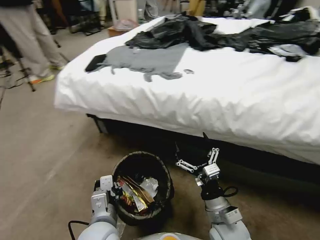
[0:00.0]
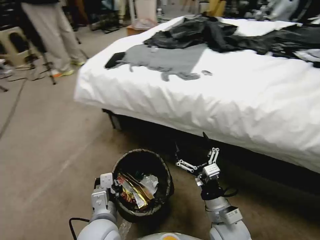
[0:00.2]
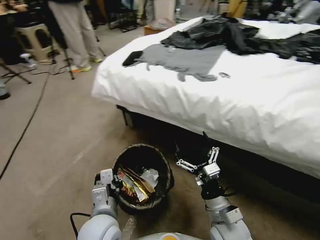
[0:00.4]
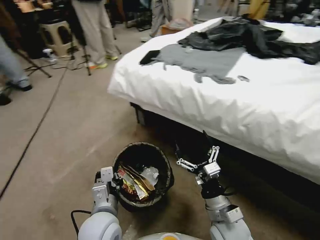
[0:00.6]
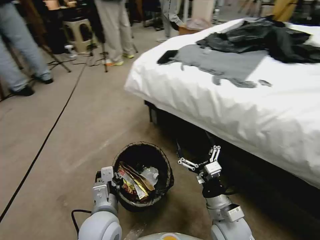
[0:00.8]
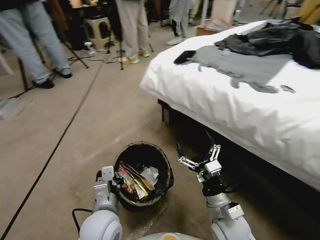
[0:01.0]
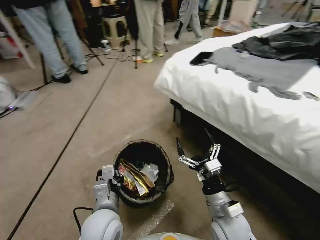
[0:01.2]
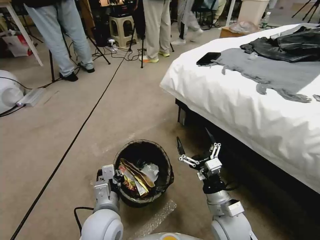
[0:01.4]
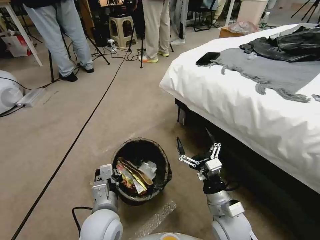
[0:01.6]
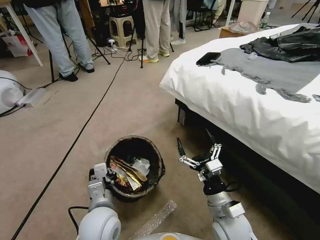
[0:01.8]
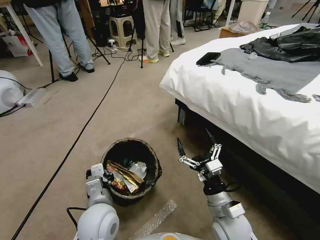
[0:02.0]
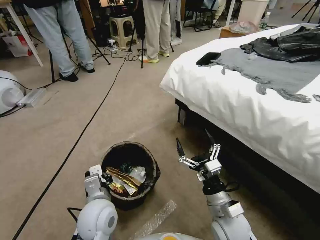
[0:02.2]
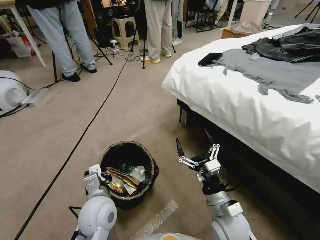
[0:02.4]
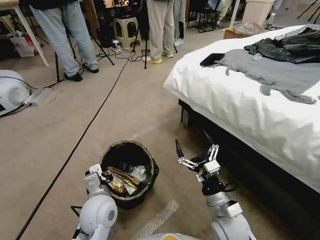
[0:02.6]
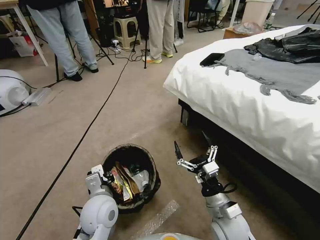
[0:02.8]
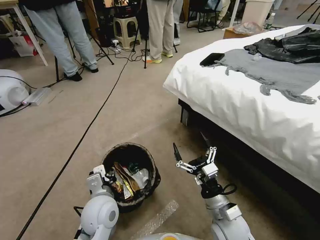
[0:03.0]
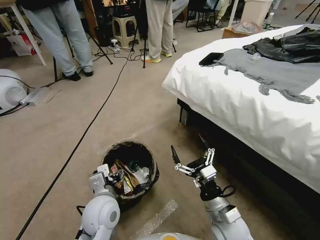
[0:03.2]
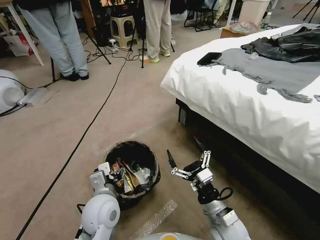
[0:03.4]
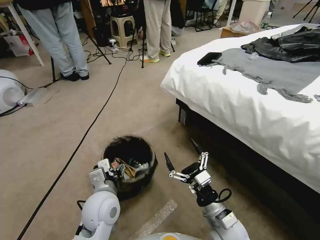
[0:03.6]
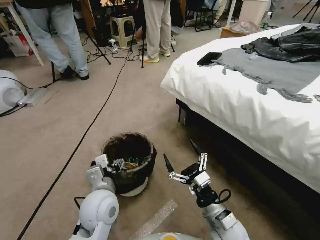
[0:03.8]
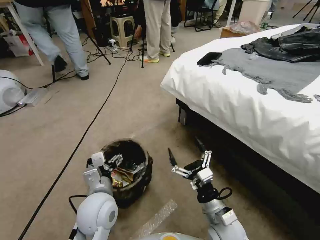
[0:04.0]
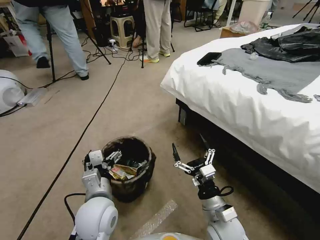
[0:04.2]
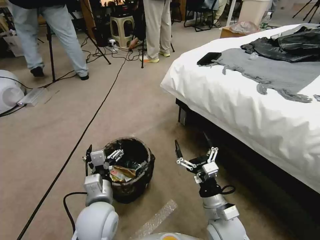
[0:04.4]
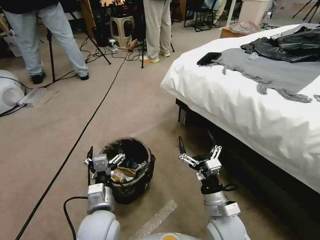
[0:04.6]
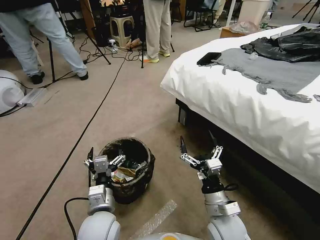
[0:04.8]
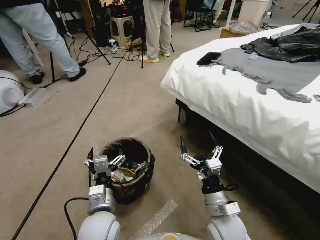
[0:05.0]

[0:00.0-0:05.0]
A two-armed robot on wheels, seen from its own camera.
Task of the whole recording: Pick up the trash bin, then pick up the garbage from the floor and place it into the trash bin.
0:01.6 to 0:03.4: The left gripper opens up.

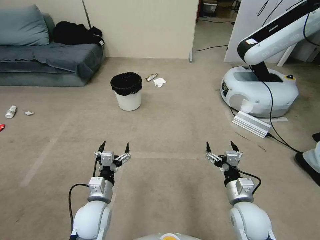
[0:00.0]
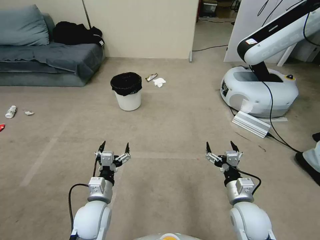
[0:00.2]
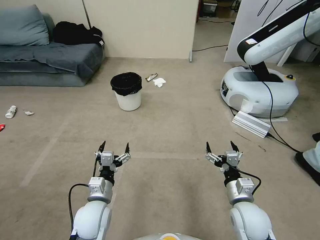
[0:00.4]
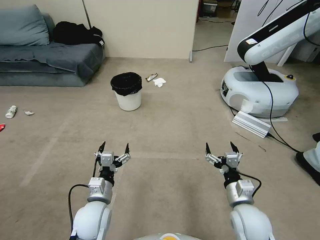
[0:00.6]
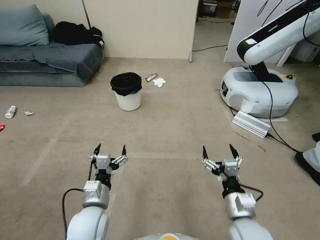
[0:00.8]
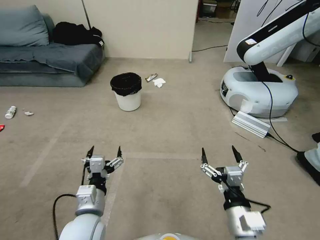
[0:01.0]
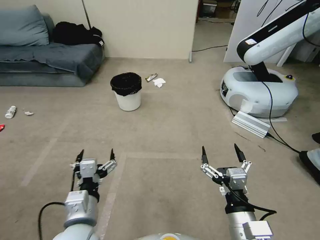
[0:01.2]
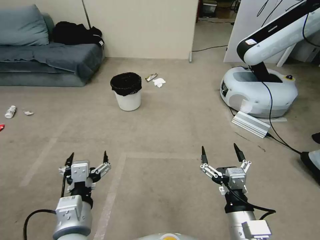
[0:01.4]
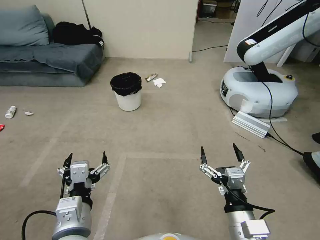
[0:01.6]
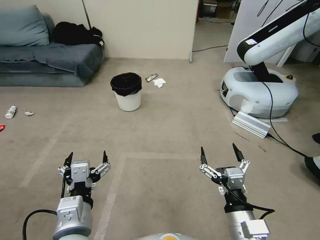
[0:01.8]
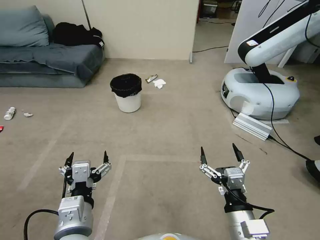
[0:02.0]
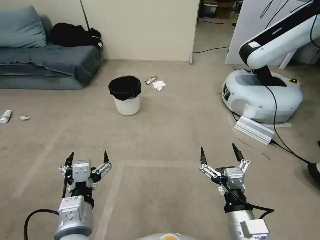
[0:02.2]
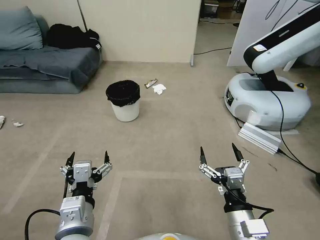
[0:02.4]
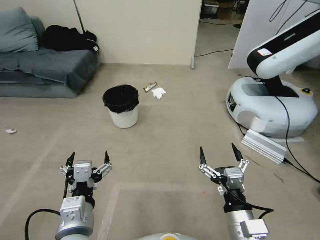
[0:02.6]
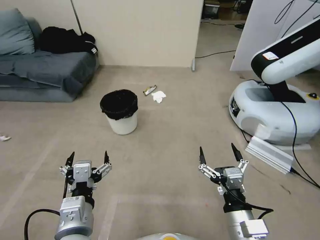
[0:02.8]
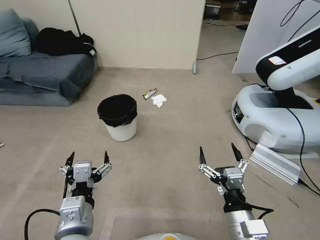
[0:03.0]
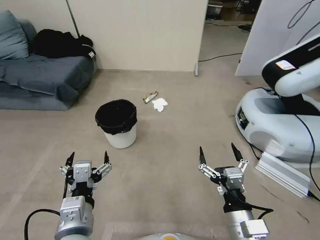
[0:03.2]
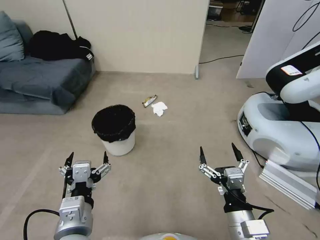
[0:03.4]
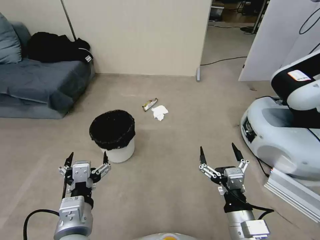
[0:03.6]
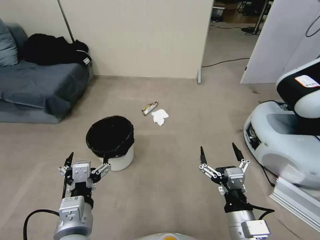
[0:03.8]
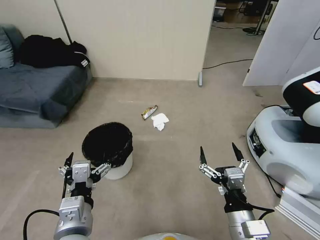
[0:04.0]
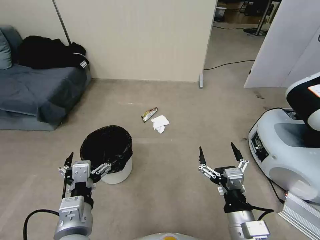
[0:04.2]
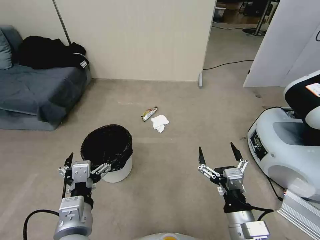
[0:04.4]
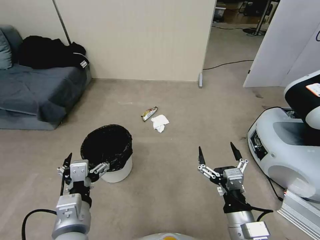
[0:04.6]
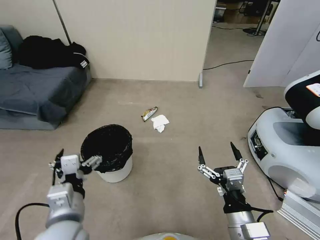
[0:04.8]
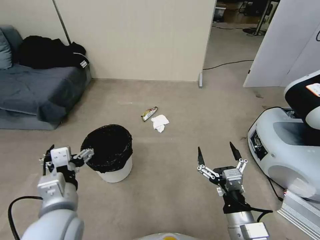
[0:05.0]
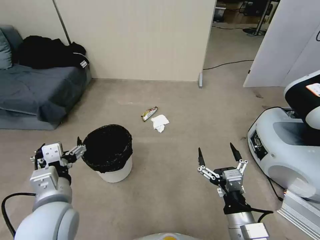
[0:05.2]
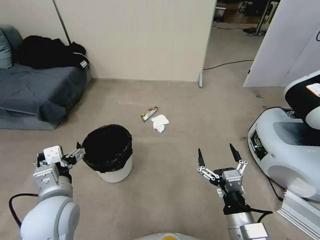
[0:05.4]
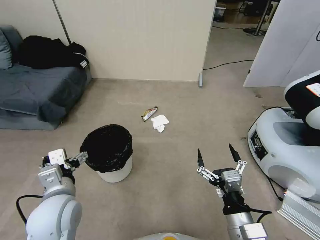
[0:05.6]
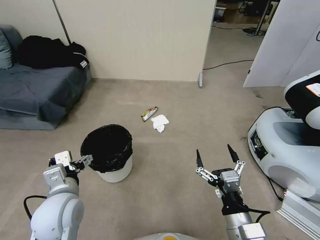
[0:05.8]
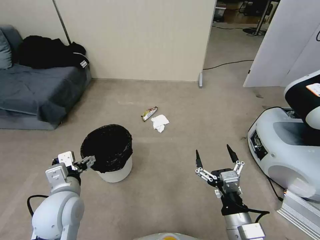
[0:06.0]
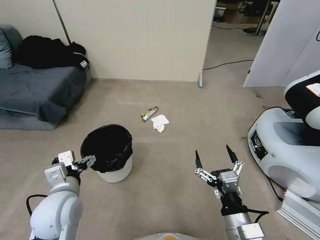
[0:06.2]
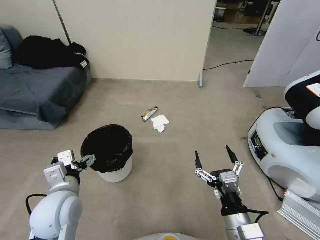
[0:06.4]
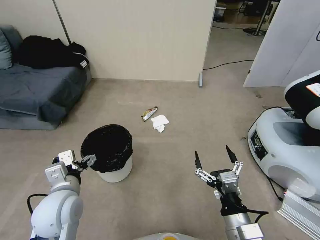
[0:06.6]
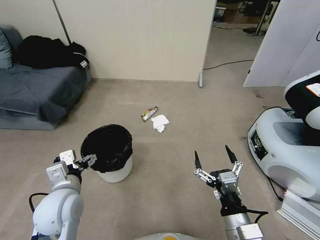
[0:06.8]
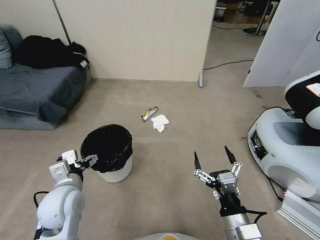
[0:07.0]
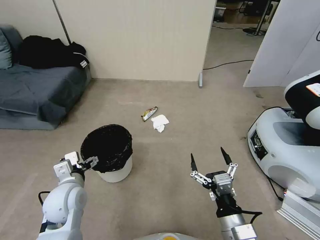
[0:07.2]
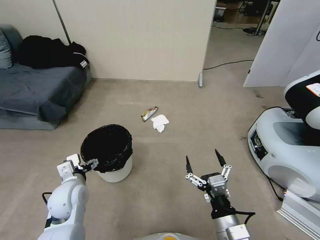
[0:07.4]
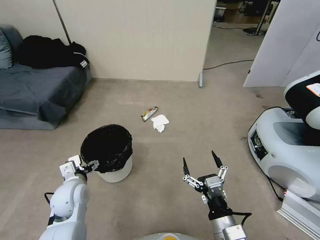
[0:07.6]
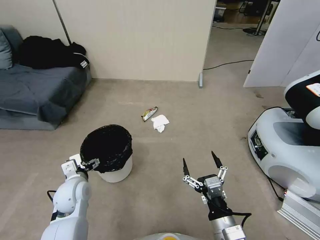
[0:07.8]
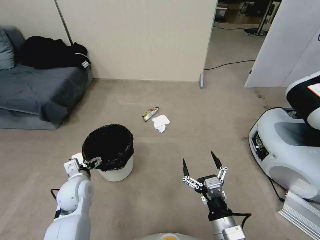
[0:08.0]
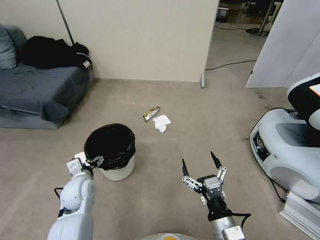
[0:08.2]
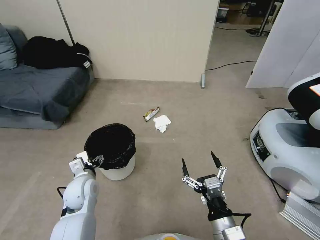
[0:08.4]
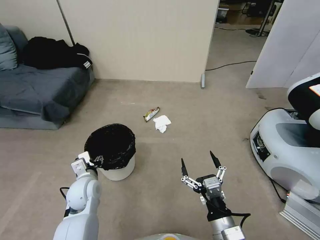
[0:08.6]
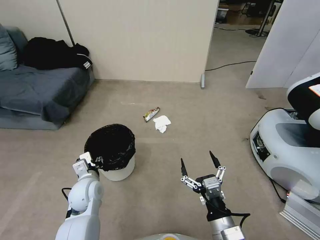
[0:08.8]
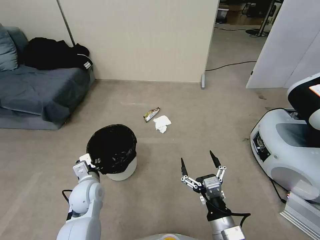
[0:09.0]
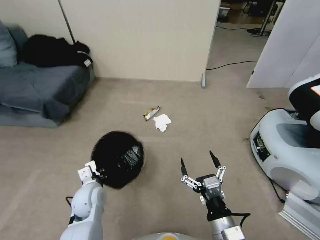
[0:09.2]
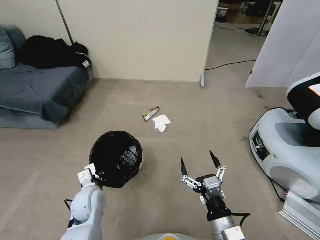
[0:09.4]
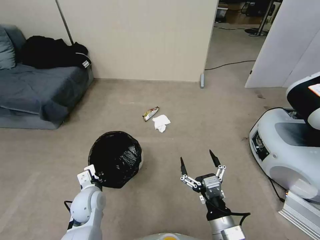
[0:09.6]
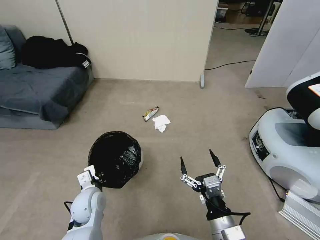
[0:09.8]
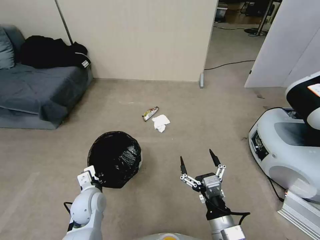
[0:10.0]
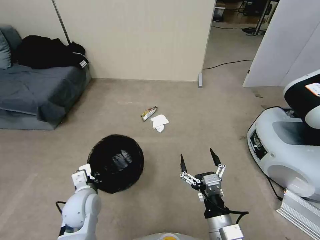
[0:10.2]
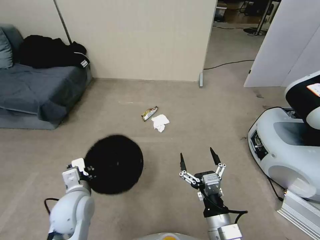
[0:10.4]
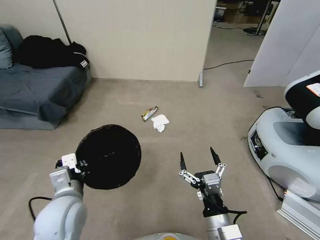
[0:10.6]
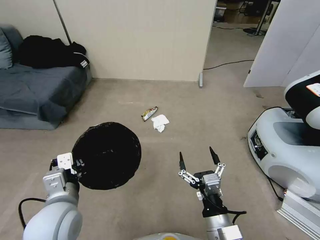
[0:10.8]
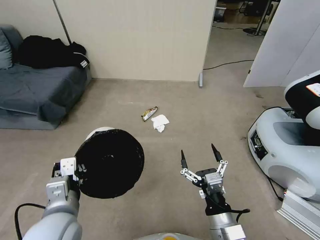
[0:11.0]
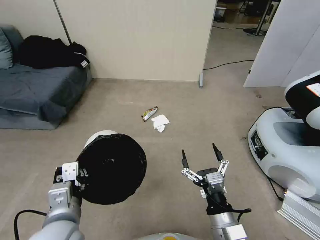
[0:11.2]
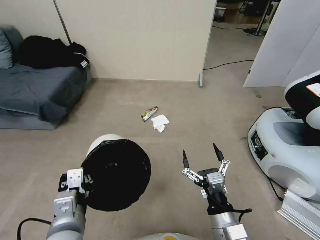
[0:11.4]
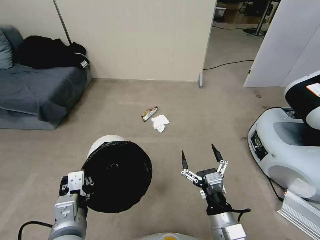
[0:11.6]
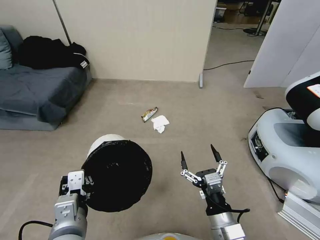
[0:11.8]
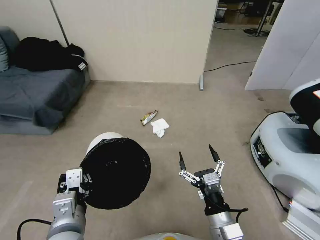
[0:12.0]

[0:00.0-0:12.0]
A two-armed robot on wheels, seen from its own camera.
Task of the whole recording: Pick up the trash bin, then pick up the garbage from the floor and place it into the trash bin.
0:04.4 to 0:06.0: The left gripper travels forward and to the left by approximately 10 cm.
0:06.0 to 0:07.6: The left gripper goes some 10 cm downward and forward.
0:07.6 to 0:09.0: The left gripper moves about 5 cm, and closes up.
0:09.0 to 0:10.4: The left gripper moves upward and backward, approximately 10 cm.
0:10.4 to 0:12.0: The left gripper heads backward and upward, covering approximately 10 cm.

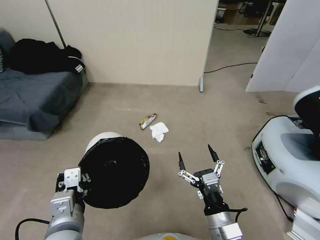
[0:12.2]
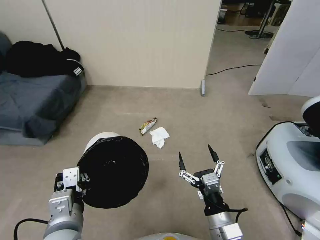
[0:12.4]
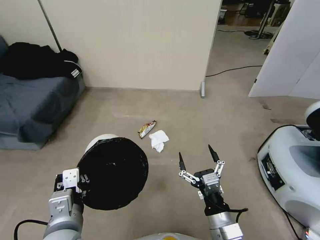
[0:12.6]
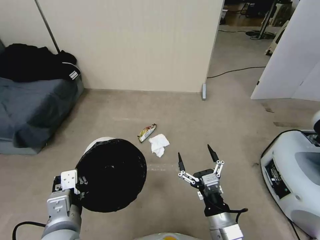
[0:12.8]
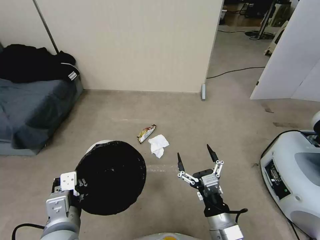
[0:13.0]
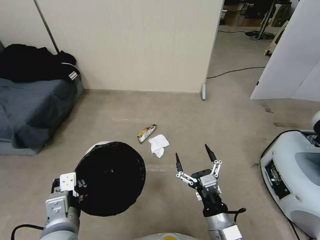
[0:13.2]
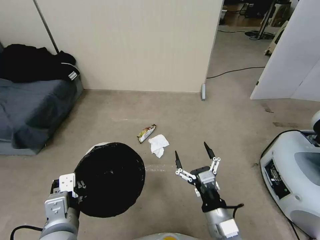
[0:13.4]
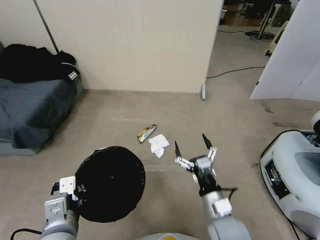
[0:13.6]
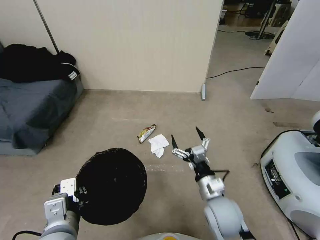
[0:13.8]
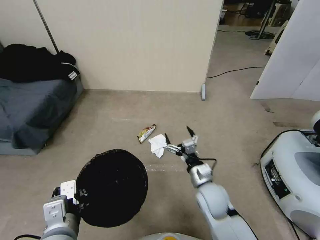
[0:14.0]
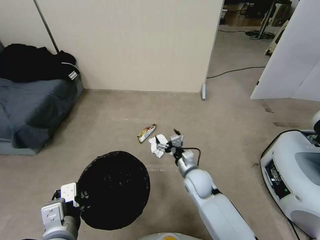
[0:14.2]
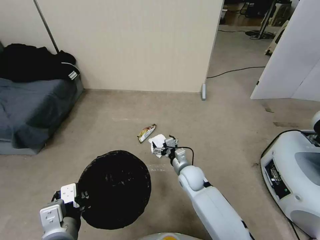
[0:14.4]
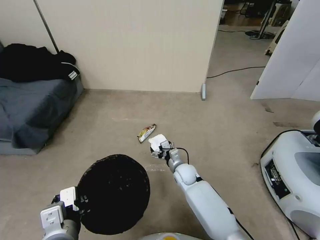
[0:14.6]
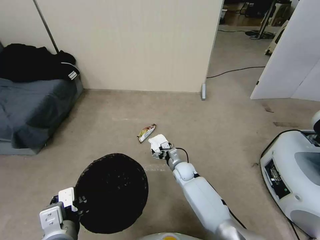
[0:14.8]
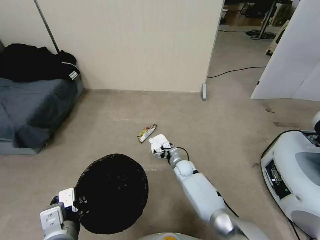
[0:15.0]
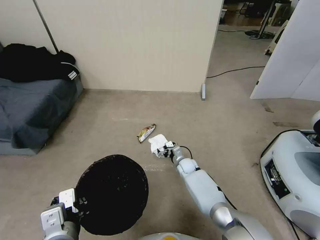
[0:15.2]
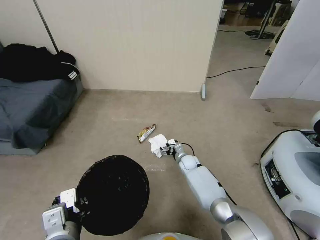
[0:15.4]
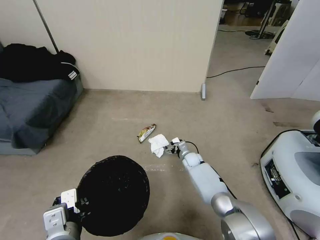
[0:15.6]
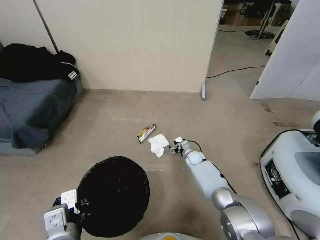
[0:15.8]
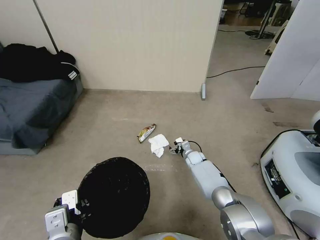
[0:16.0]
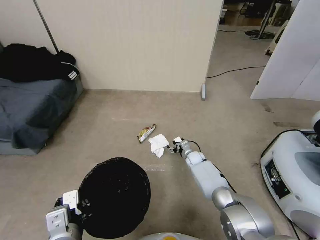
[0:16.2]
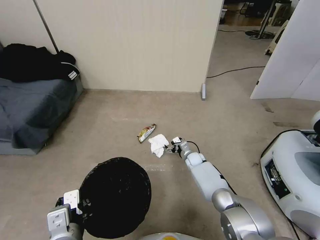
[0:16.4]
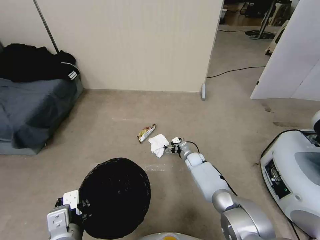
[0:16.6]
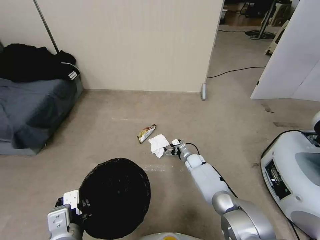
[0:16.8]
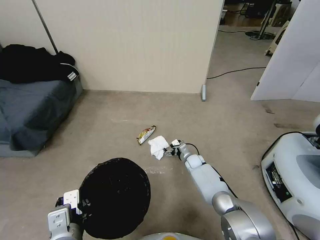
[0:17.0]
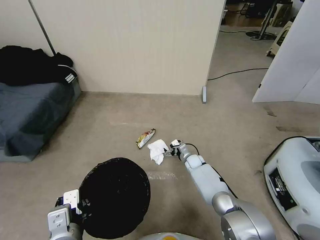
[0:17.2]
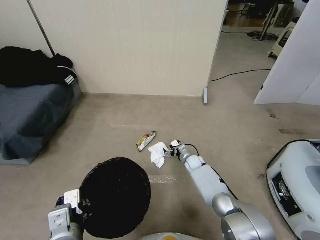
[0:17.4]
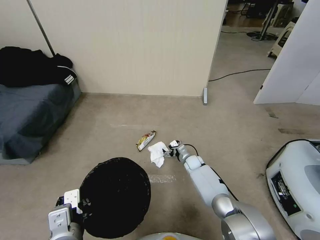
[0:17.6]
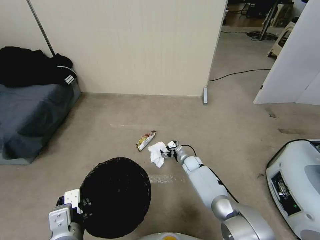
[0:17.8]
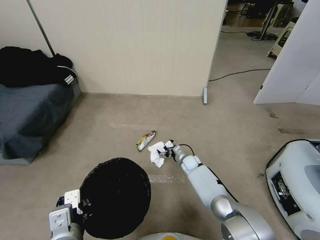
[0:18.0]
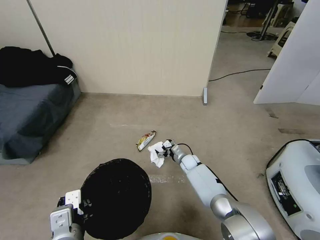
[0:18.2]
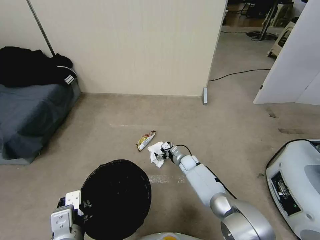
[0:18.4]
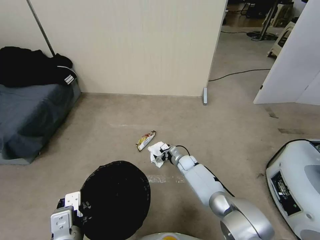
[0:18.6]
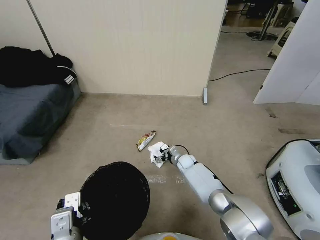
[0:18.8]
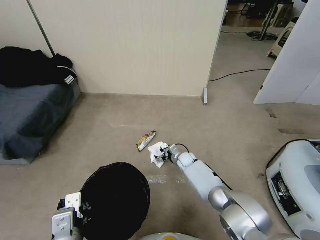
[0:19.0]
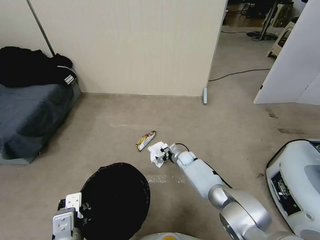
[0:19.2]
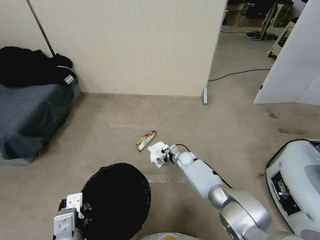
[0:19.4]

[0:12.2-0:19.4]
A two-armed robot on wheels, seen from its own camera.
Task of the whole recording: Pick up the trash bin, then pick up the garbage from the floor and place it into the trash bin.
0:12.2 to 0:13.6: The right gripper goes roughly 5 cm forward.
0:13.6 to 0:15.0: The right gripper is displaced forward and downward by roughly 35 cm.
0:15.0 to 0:16.6: The right gripper shifts about 5 cm to the right.
0:16.6 to 0:19.4: The grippers stay close to where they were, moving slightly.
